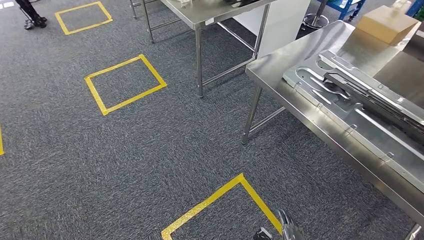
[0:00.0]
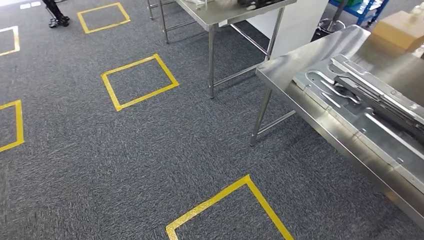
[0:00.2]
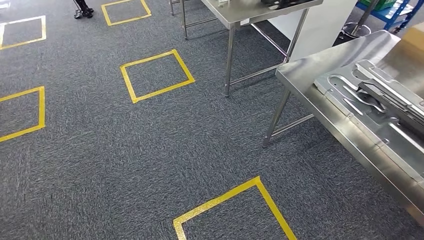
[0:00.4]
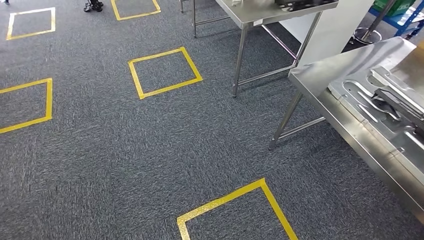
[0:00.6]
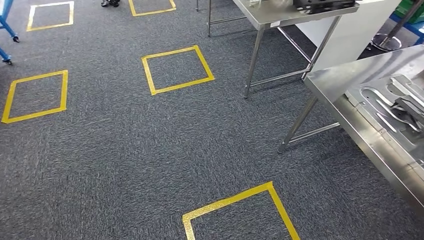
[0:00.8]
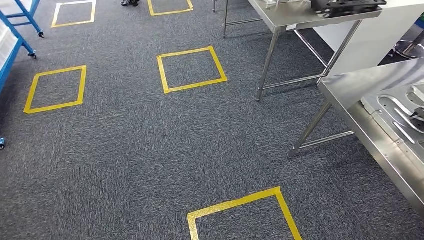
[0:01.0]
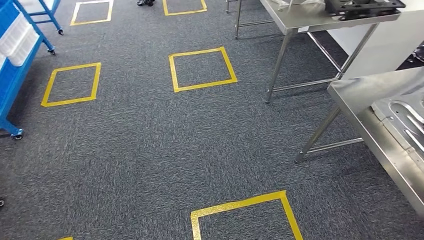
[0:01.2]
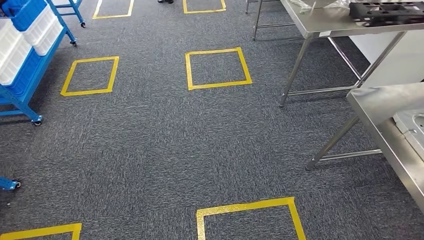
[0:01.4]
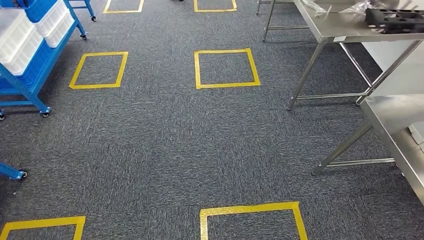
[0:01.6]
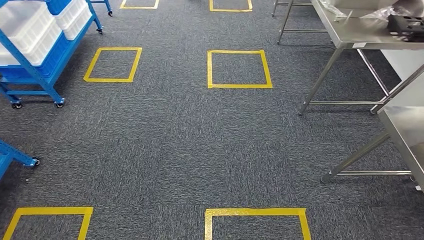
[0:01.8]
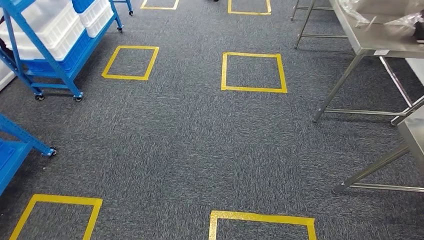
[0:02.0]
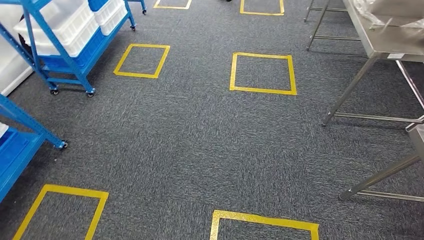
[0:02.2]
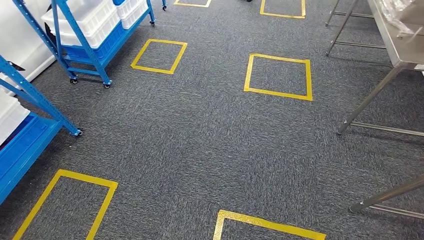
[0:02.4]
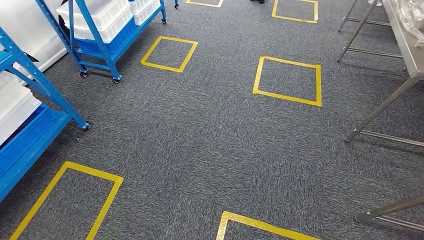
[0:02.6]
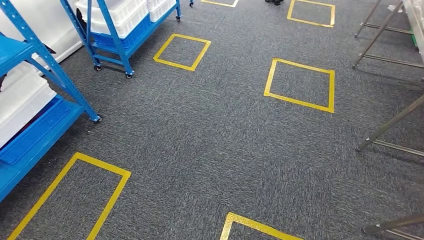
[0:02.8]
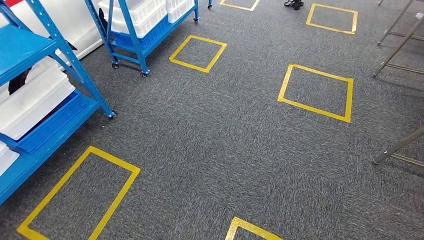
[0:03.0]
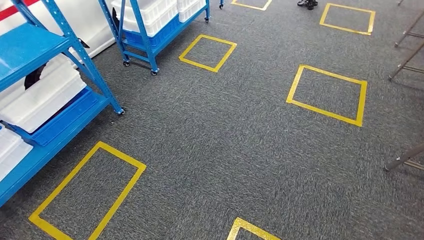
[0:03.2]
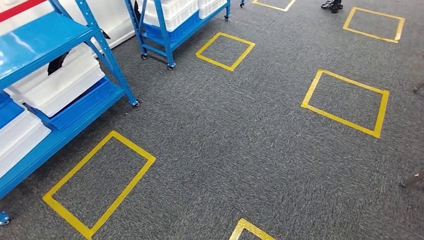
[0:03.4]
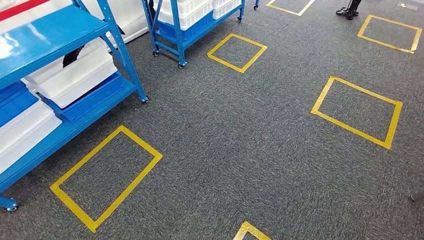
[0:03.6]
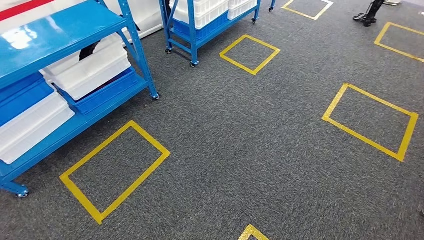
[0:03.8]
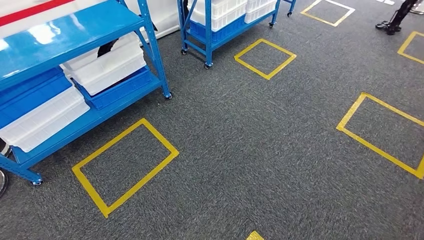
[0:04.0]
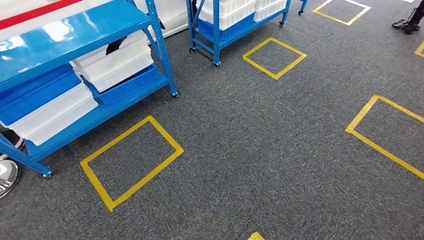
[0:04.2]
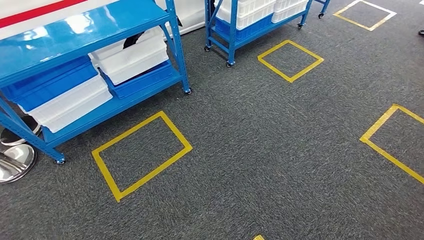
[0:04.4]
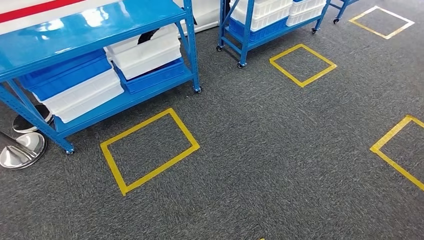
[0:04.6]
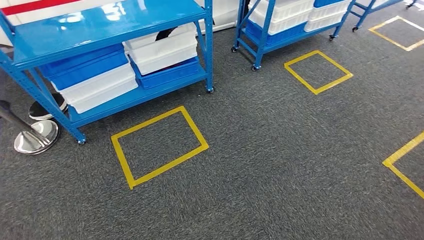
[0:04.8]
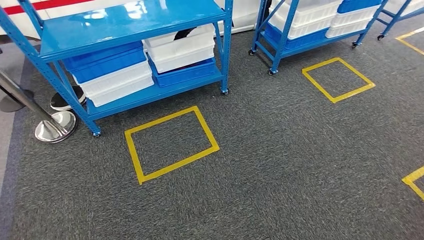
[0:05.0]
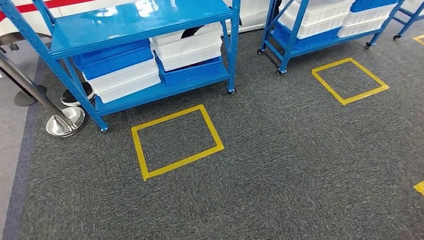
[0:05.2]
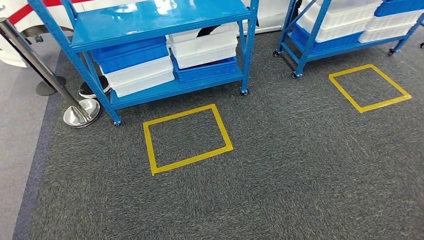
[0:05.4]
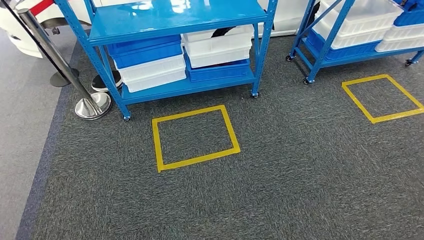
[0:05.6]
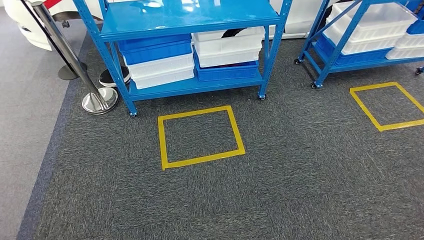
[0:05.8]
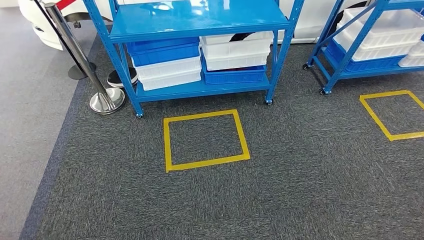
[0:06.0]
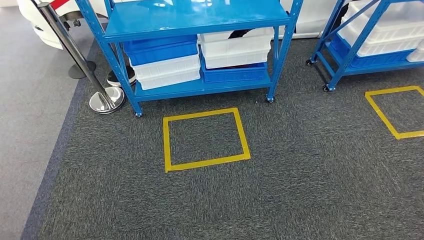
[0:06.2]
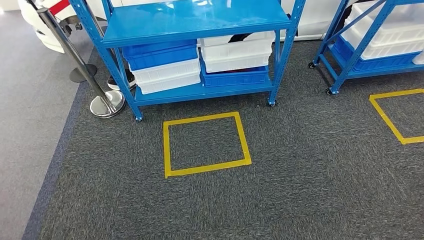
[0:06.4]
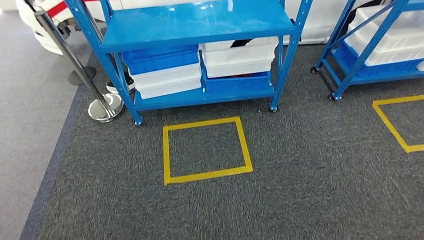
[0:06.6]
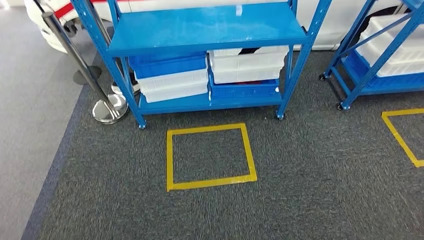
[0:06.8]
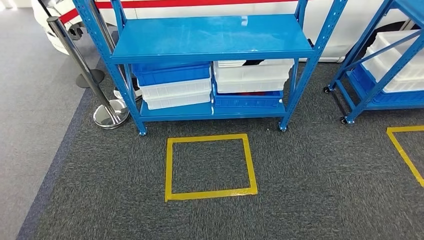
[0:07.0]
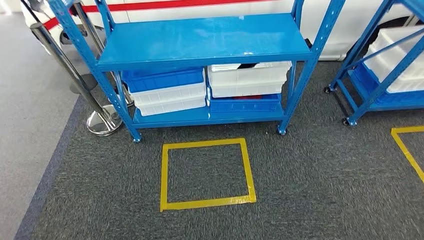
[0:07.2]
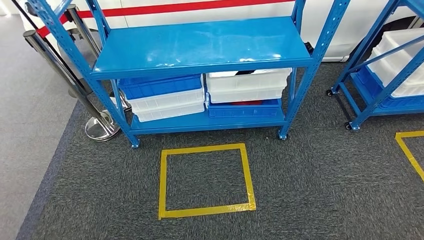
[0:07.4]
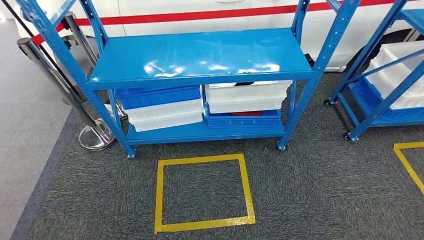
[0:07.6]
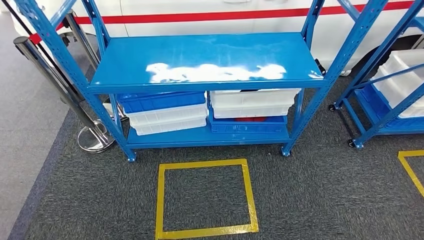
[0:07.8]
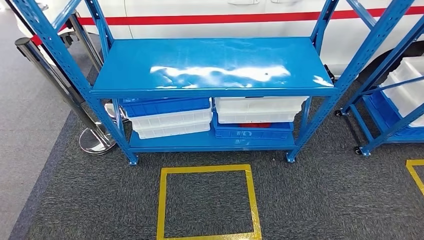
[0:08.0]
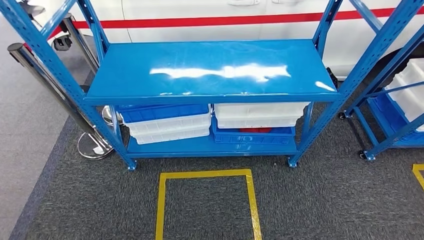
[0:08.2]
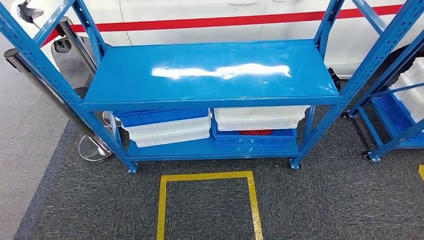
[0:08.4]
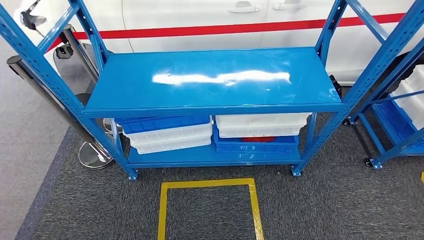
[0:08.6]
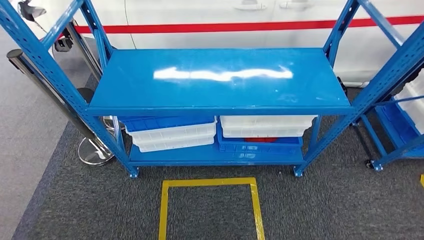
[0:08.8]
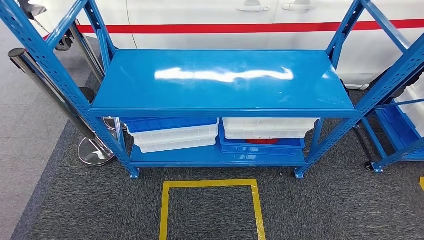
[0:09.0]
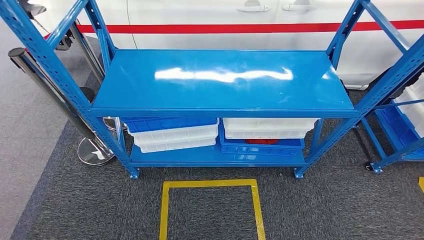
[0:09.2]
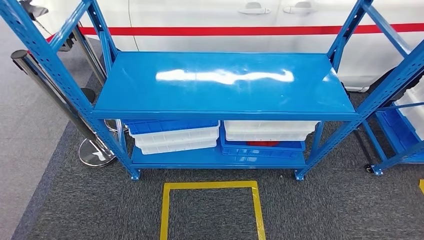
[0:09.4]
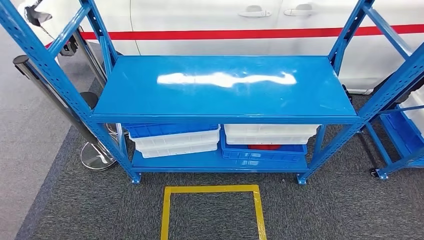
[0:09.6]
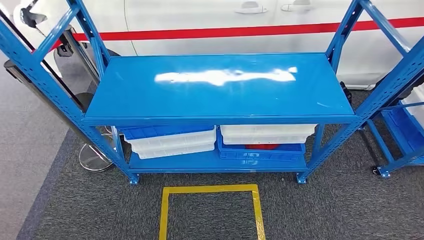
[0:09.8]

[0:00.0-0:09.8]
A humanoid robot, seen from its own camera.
Step, 0:01.0 to 0:09.6: Move to the initial position of the shelf.

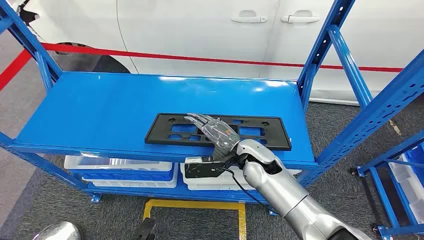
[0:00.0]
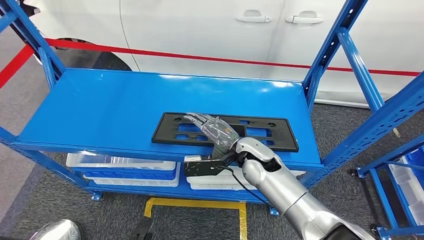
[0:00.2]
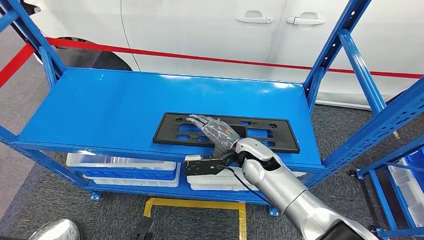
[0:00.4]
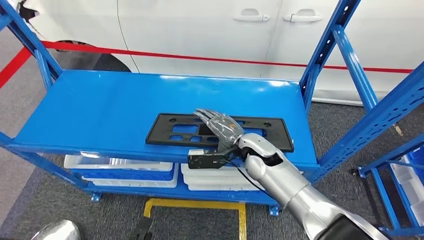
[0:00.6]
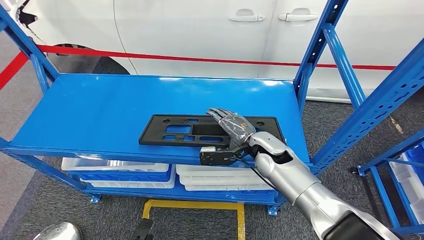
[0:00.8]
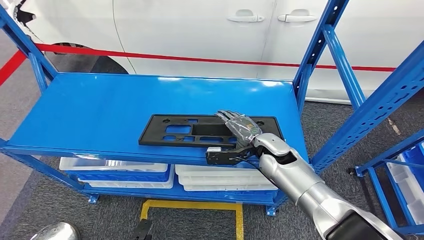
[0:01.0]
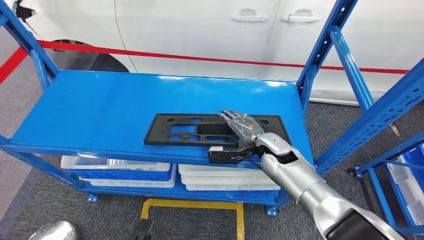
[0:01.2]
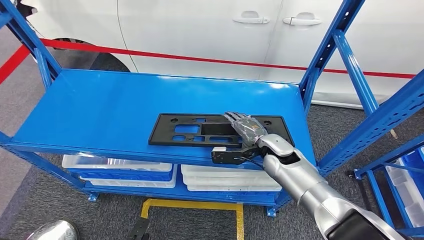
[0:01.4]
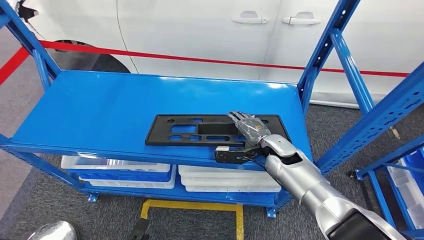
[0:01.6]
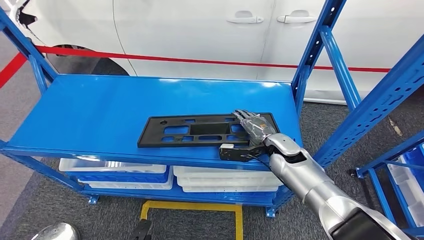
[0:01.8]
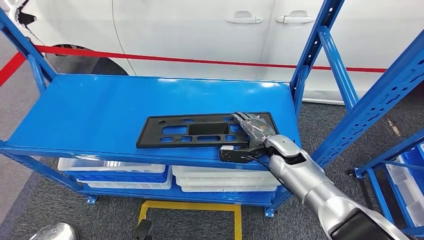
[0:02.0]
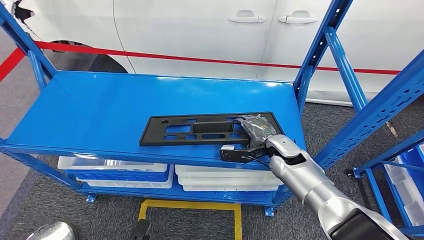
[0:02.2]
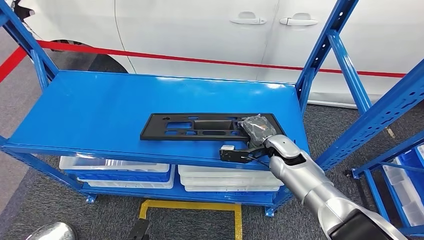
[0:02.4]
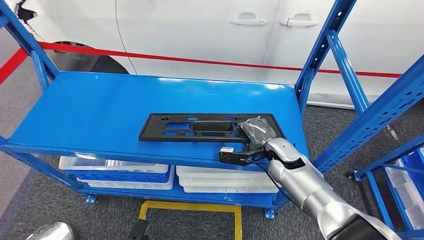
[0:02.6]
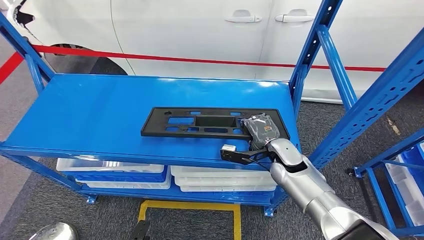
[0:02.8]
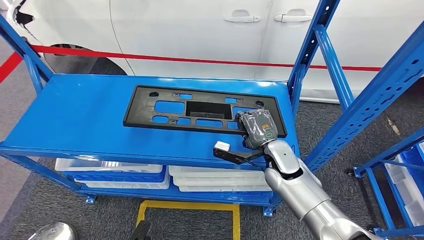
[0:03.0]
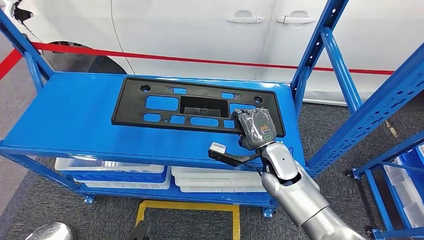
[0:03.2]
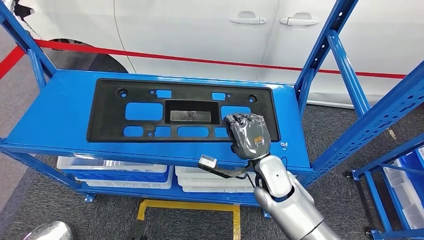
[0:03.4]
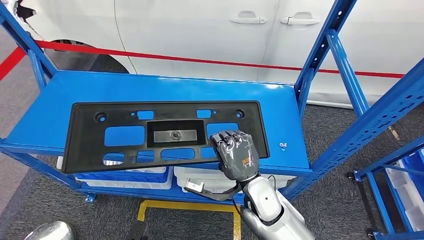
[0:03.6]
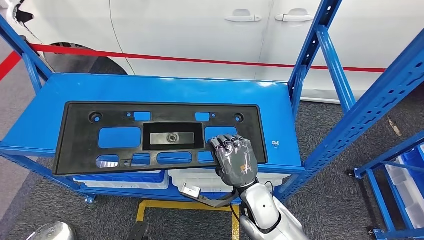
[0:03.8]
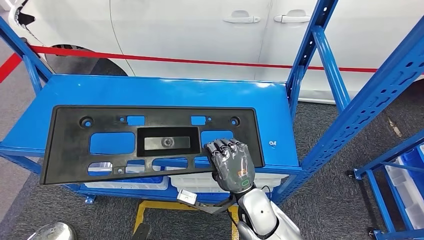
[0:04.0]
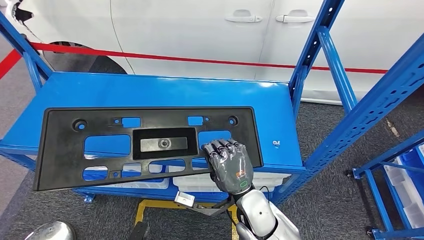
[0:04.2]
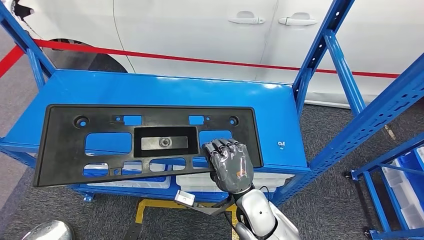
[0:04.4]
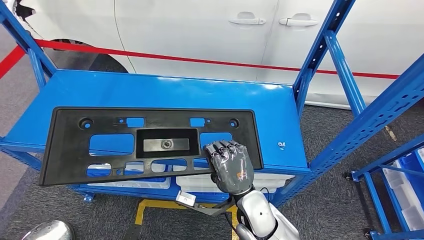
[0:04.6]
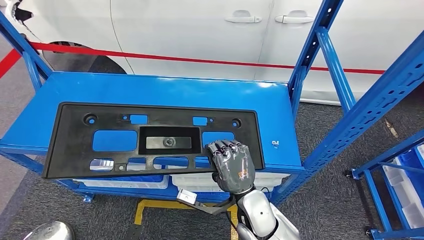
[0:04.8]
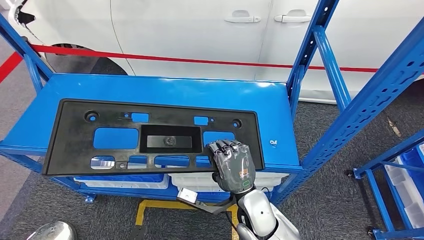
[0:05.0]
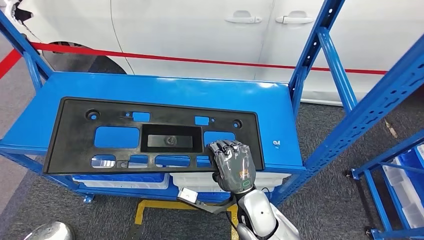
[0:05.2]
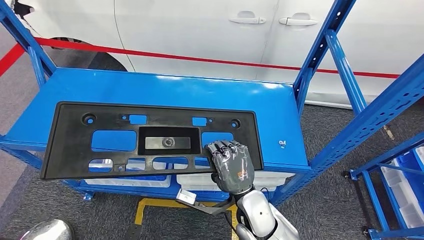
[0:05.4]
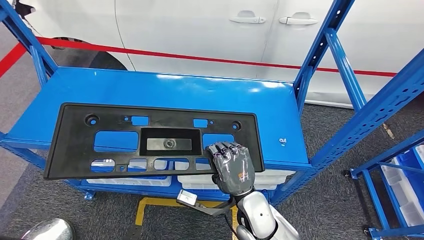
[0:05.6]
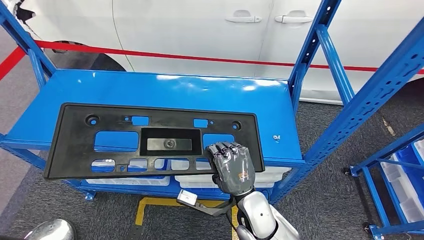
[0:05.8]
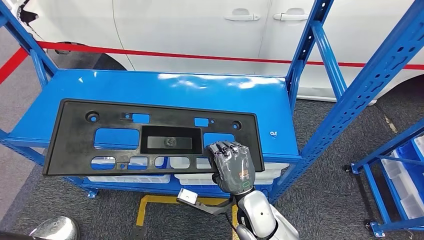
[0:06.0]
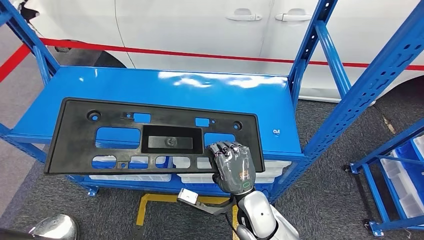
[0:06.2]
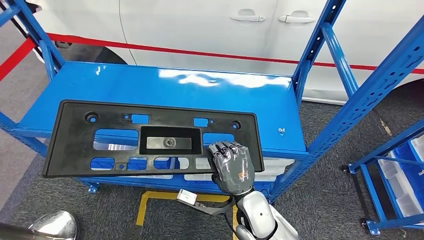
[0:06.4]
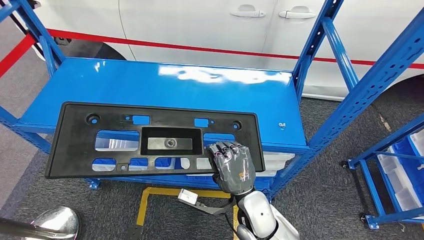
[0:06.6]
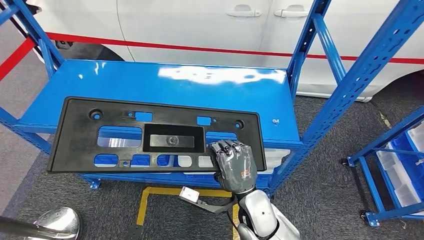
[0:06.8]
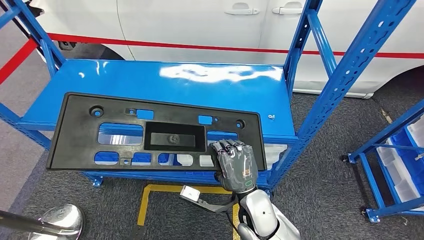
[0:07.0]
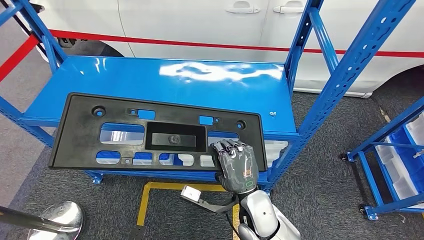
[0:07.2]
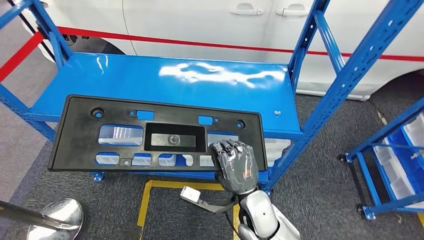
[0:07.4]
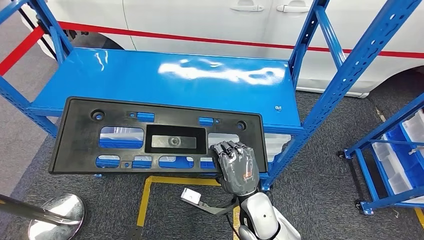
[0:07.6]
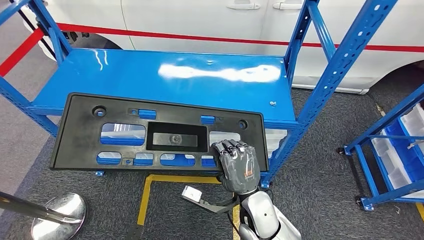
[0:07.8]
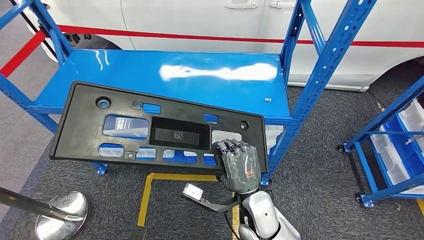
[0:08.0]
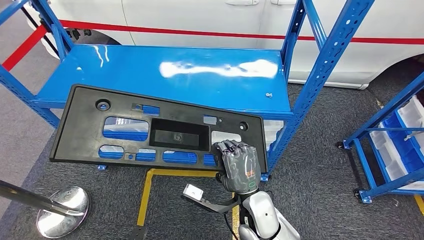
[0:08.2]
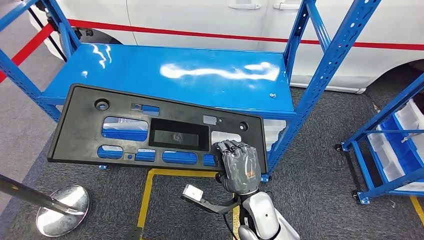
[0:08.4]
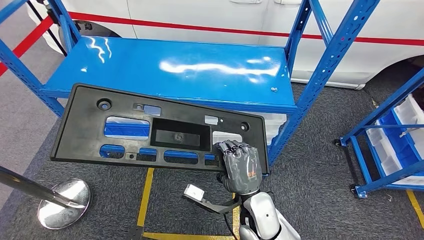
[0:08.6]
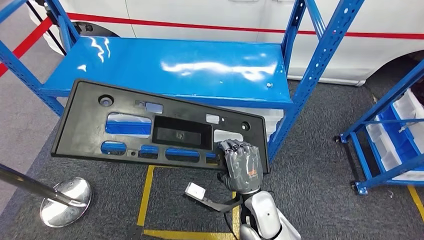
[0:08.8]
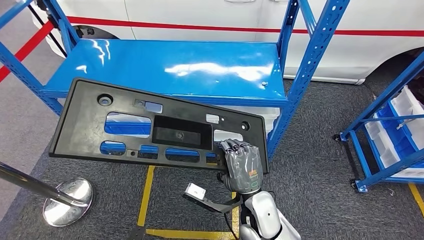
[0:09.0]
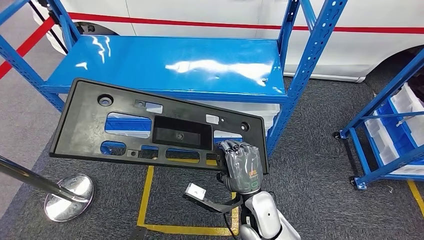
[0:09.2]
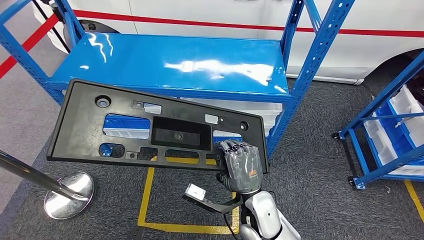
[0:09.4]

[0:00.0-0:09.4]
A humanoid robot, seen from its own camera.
Step, 0:00.0 to 0:08.0: Pick up the large material from the shelf.
